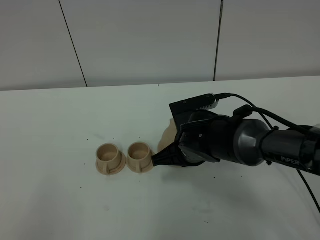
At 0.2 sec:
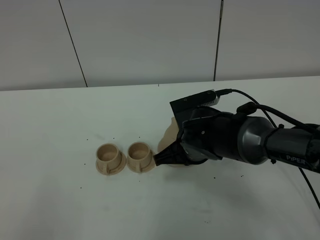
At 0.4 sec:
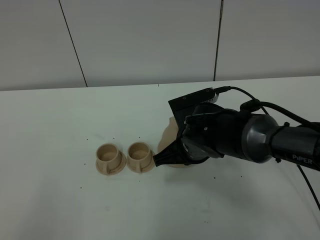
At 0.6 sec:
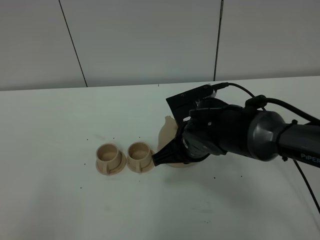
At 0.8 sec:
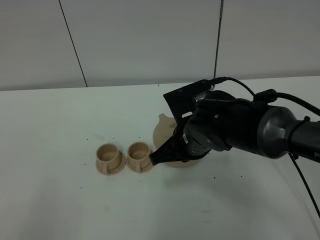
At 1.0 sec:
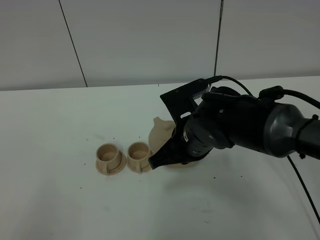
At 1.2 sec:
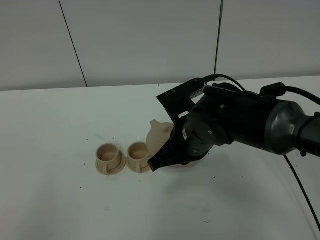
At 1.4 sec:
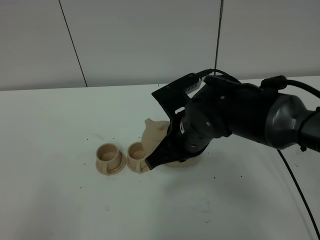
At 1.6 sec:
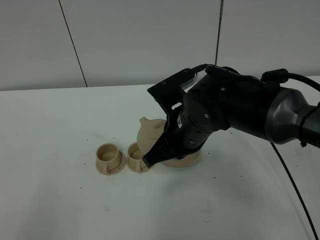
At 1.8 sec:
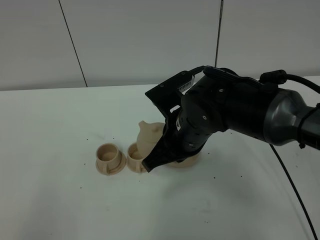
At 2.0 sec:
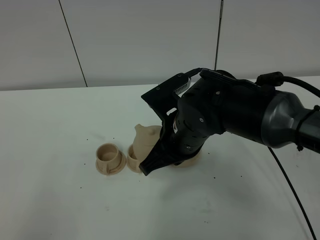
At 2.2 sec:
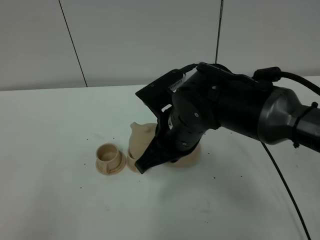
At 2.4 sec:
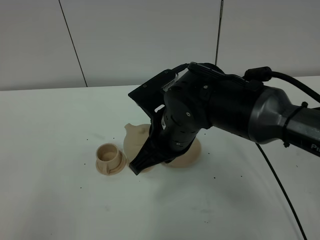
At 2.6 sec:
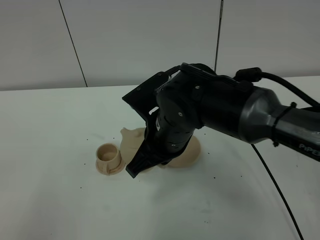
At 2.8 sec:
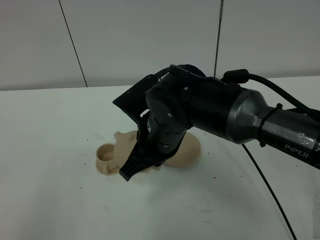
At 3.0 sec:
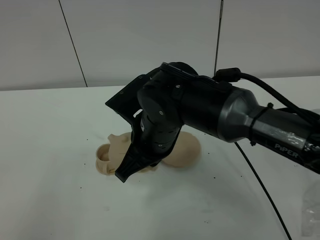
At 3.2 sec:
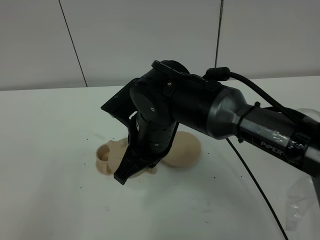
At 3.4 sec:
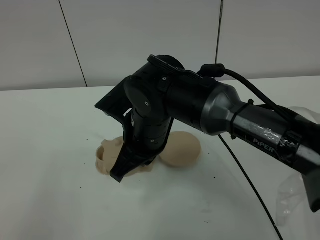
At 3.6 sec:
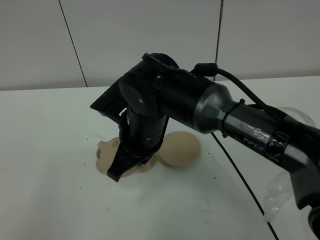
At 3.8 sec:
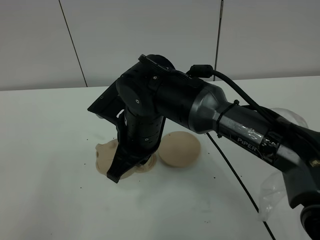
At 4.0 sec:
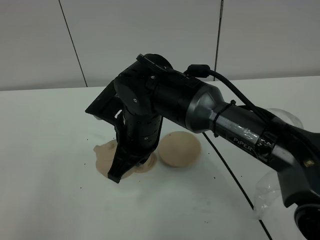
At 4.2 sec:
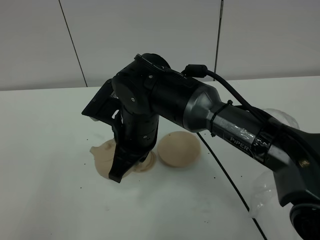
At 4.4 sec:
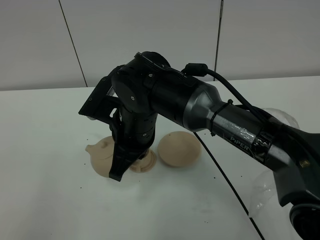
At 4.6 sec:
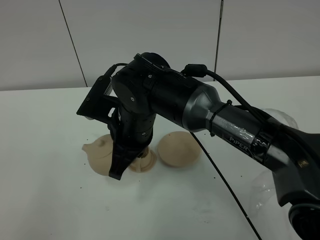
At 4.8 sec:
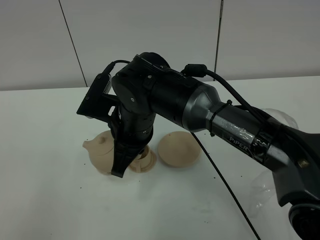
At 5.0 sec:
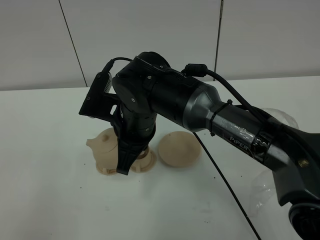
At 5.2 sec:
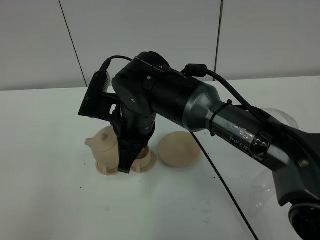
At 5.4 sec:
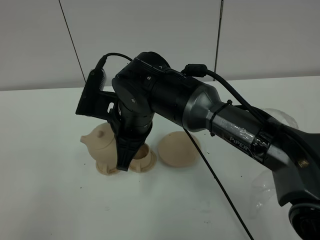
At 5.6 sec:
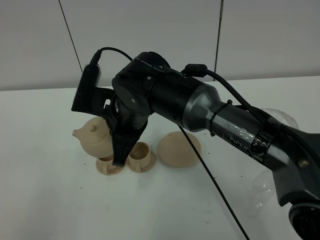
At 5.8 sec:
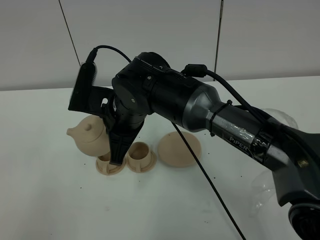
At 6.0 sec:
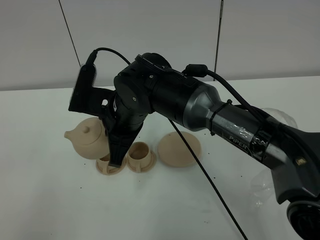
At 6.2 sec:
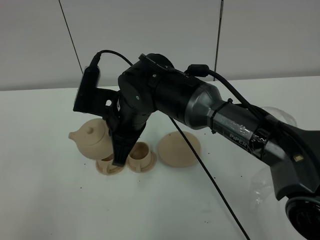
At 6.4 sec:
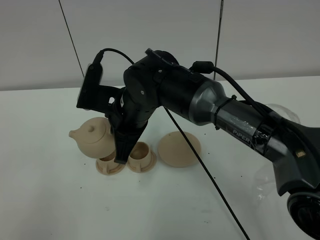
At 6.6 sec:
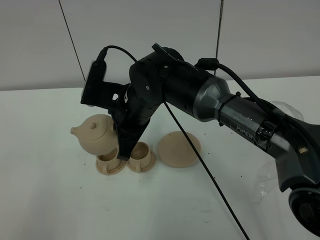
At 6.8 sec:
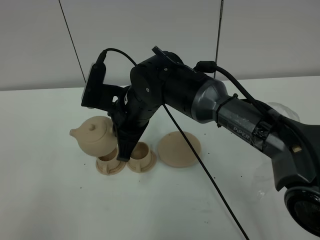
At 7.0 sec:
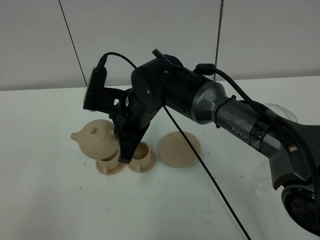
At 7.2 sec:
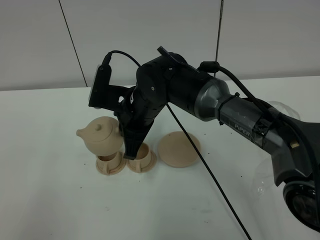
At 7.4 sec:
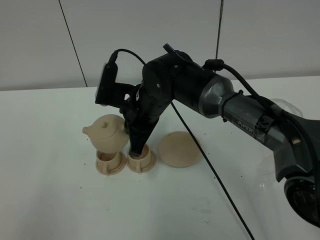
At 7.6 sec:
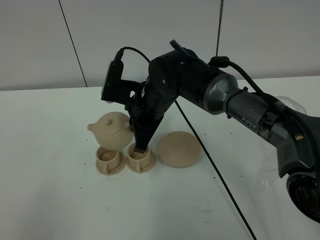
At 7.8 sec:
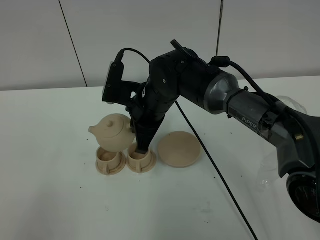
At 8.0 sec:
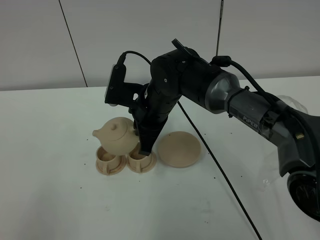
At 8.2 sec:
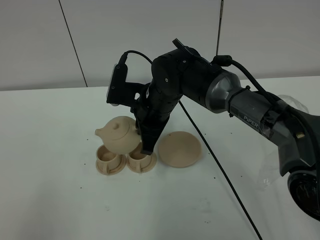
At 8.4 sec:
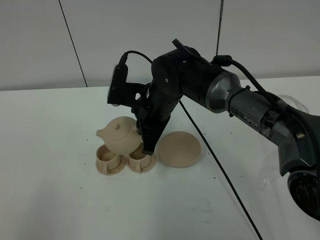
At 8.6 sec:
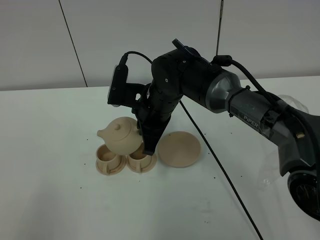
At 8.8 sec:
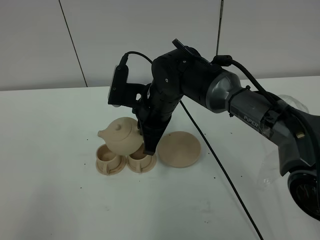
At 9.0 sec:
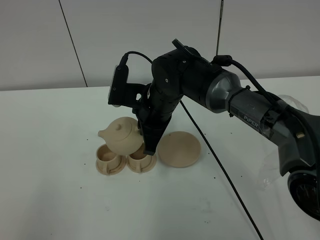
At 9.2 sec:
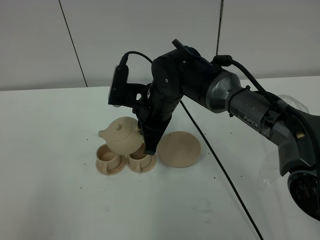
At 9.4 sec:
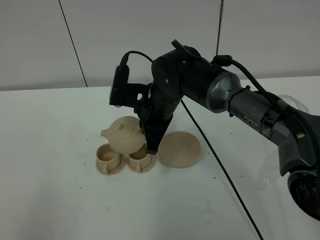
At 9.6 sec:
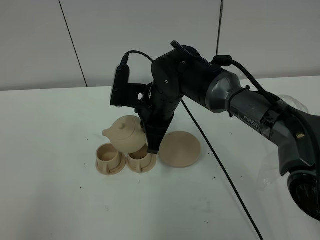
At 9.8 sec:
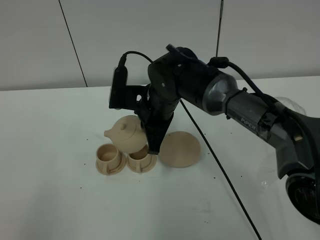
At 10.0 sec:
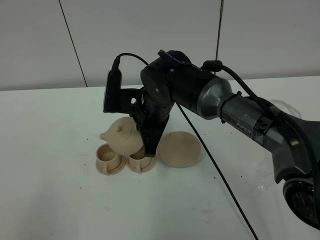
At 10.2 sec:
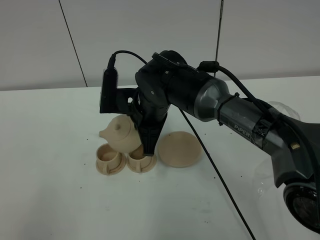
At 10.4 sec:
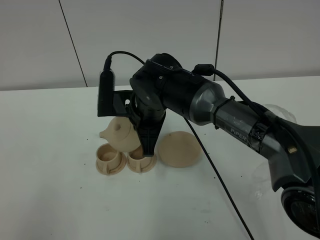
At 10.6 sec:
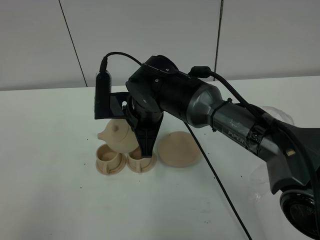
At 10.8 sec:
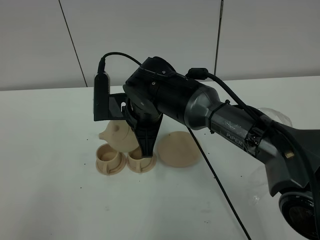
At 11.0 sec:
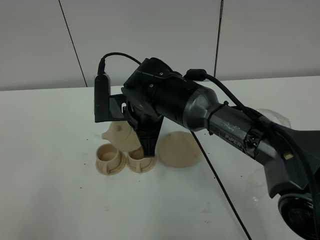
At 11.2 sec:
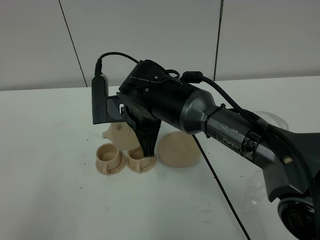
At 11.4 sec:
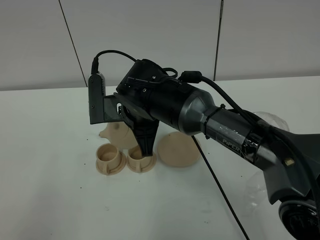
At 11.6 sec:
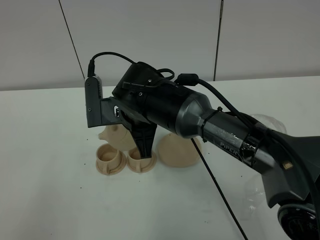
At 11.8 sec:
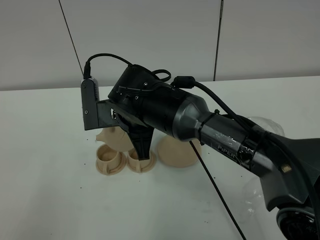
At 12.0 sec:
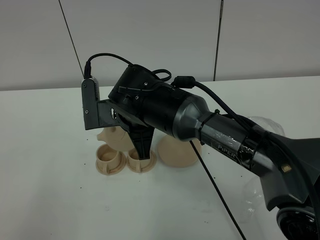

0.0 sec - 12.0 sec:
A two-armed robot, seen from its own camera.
Task of the whole recording: grasp the brown teapot and pour the tea into the two brown teacups one by one, put the brown teapot back in its original place.
0.0 sec - 1.6 sec: The right gripper goes roughly 10 cm upward.
1.6 sec - 3.0 sec: The right gripper is displaced to the left by about 5 cm.
4.4 sec - 6.0 sec: There are only small adjustments of the grippers.
6.0 sec - 7.6 sec: The right gripper shifts roughly 5 cm forward.
7.6 sec - 9.0 sec: The two grippers keep their place.
9.0 sec - 10.4 sec: There are only small adjustments of the grippers.
10.4 sec - 12.0 sec: The grippers make only small movements.

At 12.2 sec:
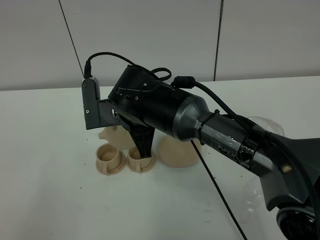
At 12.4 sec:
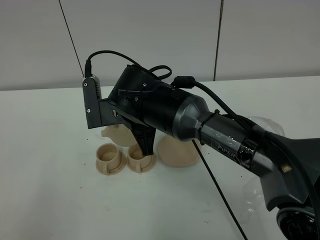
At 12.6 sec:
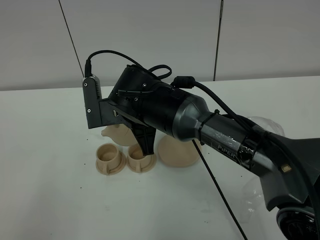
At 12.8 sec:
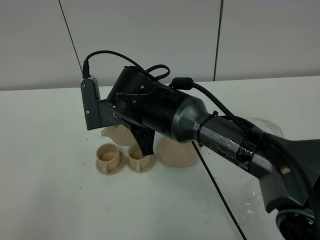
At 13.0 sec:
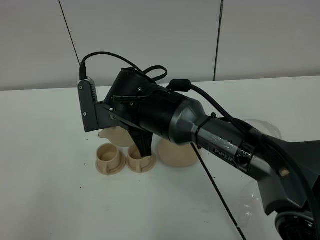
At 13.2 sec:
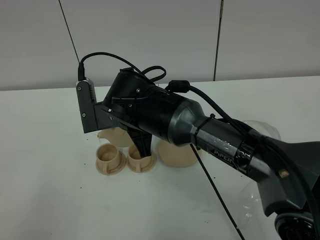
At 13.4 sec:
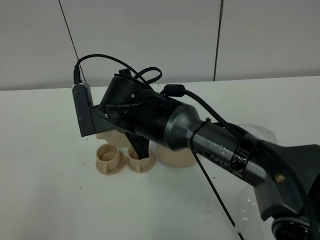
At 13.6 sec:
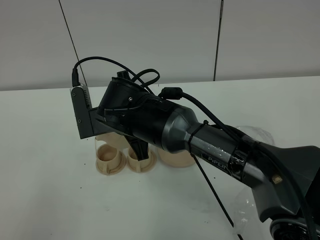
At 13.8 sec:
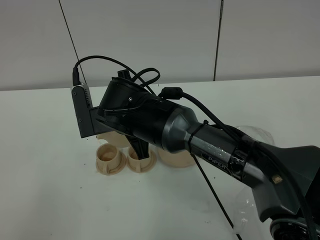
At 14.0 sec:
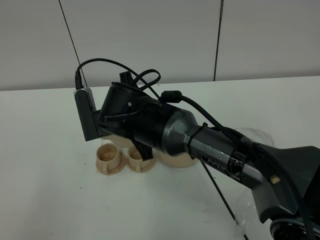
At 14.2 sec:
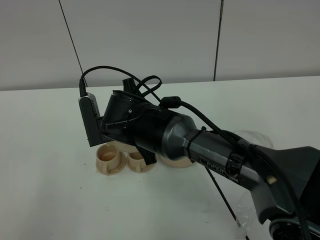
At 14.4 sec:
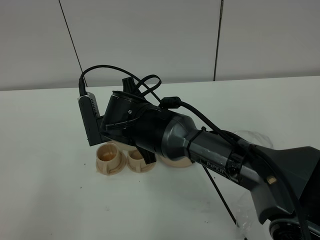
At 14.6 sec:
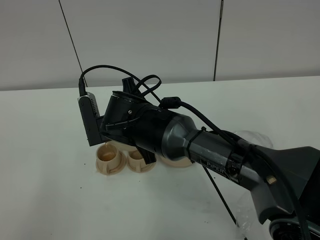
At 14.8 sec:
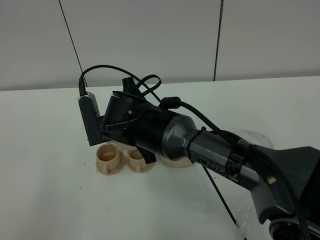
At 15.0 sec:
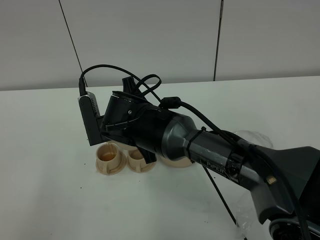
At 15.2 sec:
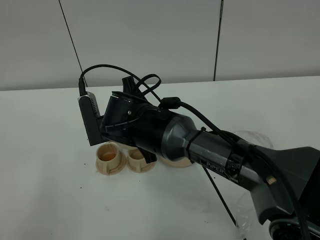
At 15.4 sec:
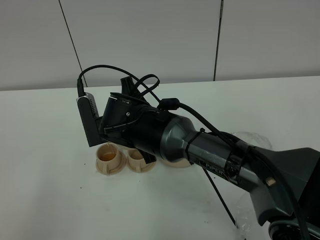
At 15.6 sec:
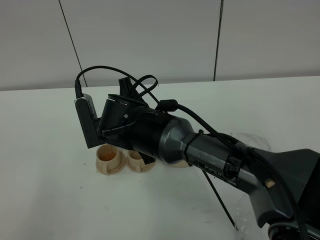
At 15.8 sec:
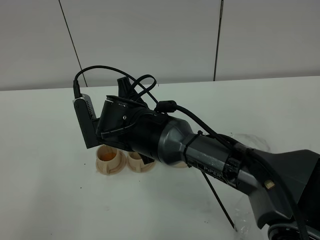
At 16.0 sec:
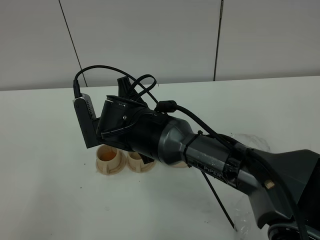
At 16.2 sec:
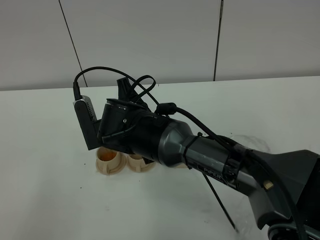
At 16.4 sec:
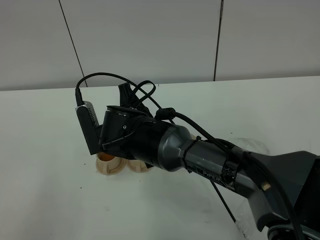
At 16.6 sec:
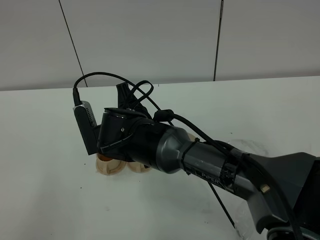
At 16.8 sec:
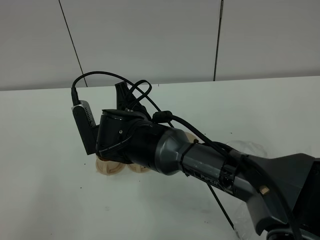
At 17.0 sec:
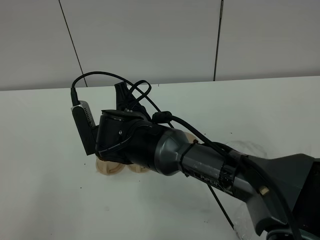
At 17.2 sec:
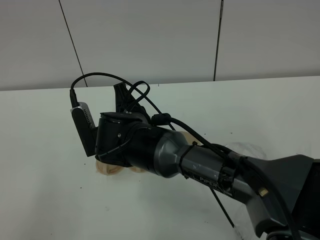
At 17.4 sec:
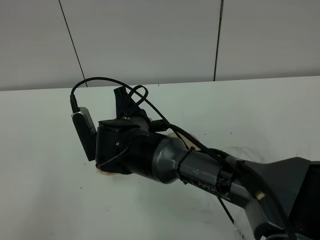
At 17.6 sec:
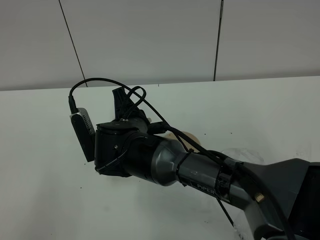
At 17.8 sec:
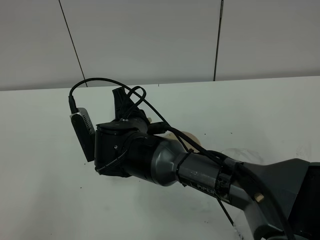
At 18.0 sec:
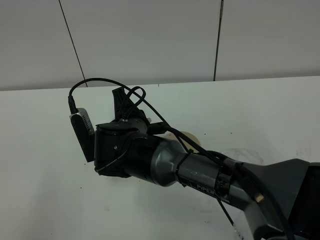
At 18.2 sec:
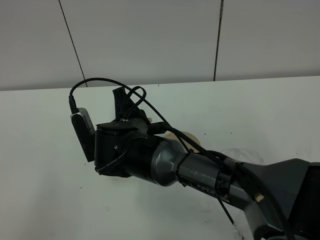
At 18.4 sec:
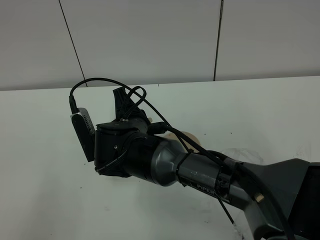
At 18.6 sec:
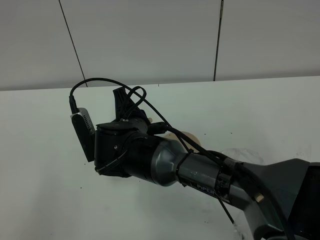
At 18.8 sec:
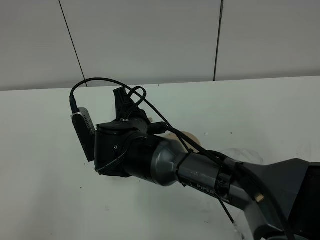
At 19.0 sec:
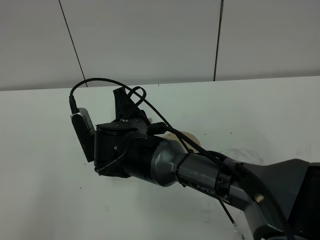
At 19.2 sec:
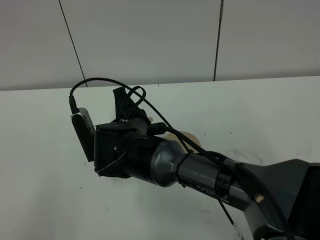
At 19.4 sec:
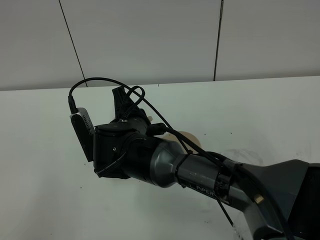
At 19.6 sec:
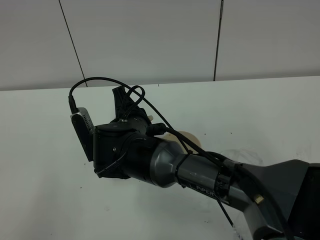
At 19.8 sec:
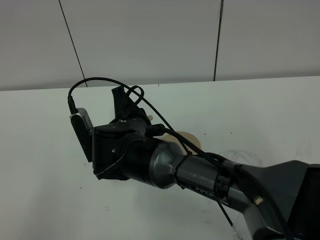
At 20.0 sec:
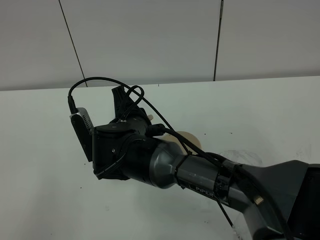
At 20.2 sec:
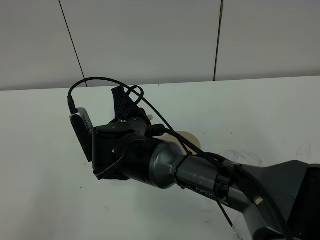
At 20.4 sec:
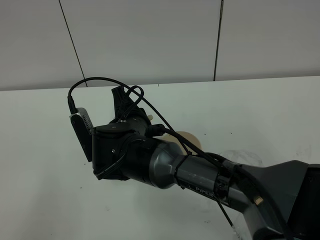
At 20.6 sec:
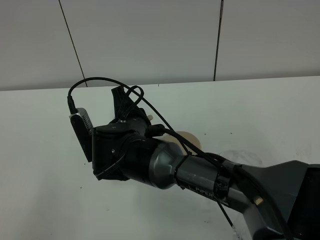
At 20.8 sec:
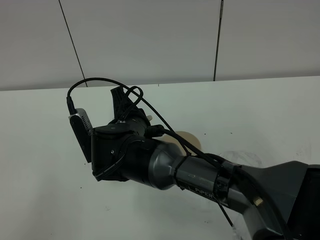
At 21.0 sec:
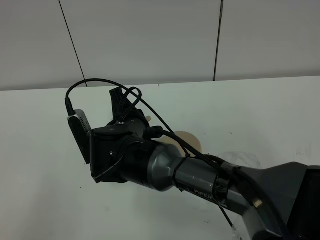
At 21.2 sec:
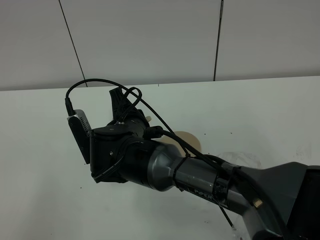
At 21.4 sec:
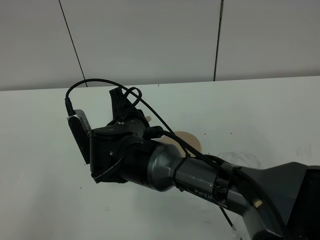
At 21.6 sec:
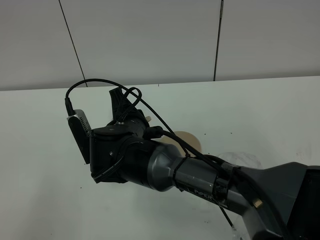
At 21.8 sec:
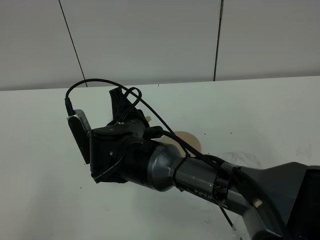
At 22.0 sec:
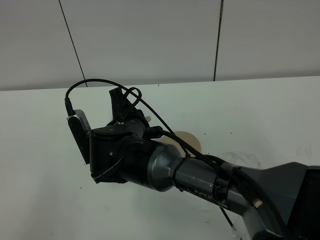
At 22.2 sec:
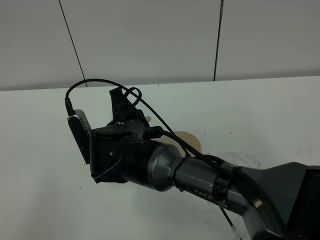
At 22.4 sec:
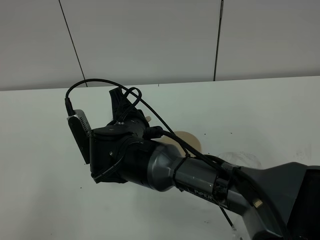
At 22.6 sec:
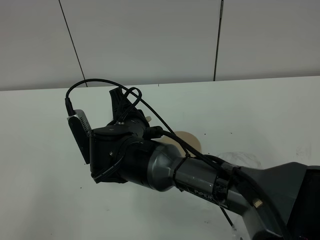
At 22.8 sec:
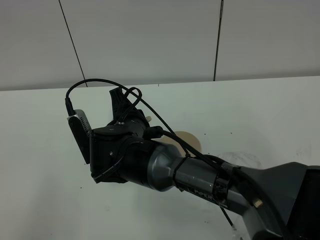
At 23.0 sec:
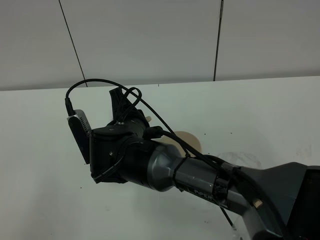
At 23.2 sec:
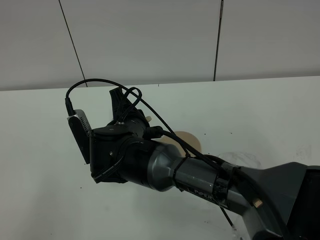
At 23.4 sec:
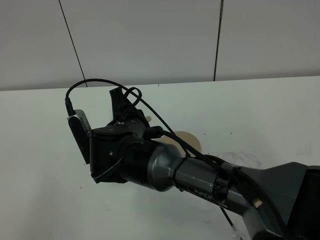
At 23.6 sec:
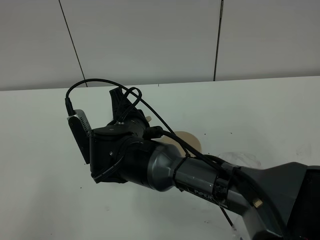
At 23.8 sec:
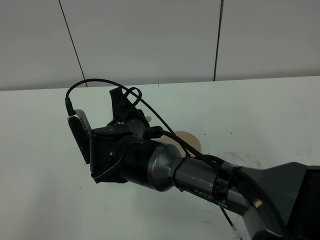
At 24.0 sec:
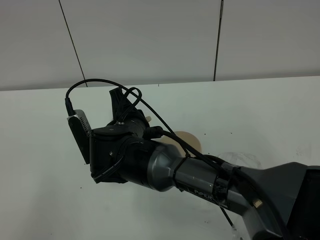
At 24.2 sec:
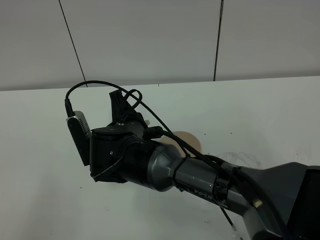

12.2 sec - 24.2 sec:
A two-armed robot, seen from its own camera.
Task of the whole recording: grasp the brown teapot and pour the tea into the two brown teacups one by one, put the brown teapot back in its original place.
12.2 sec - 16.6 sec: There are only small adjustments of the grippers.
16.6 sec - 18.2 sec: Both grippers stay put.
18.2 sec - 24.2 sec: The two grippers keep their place.
